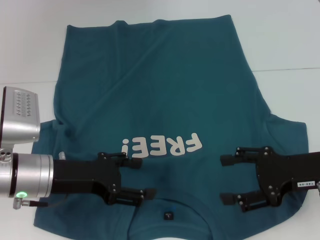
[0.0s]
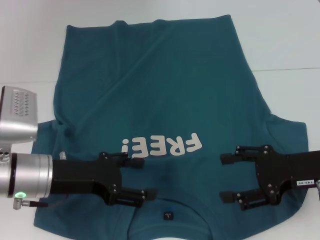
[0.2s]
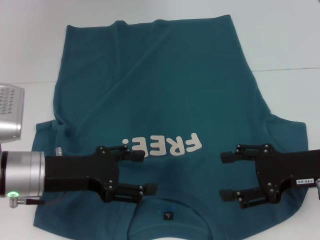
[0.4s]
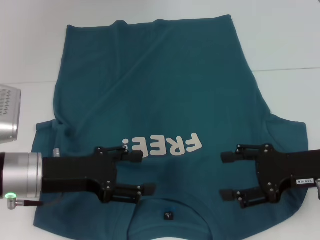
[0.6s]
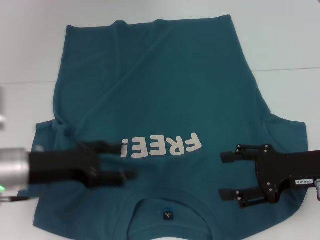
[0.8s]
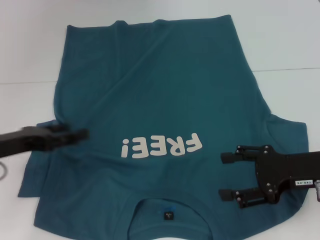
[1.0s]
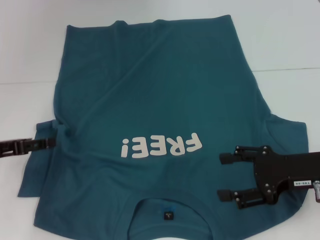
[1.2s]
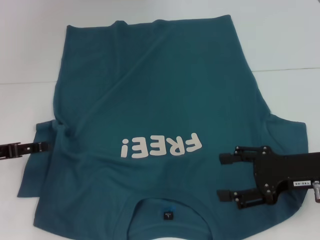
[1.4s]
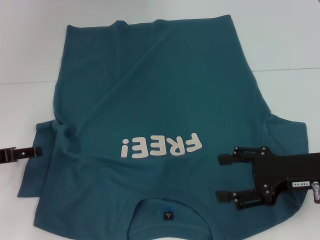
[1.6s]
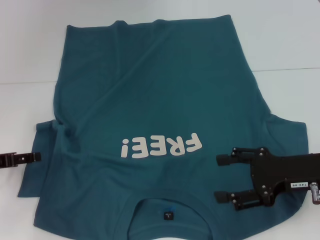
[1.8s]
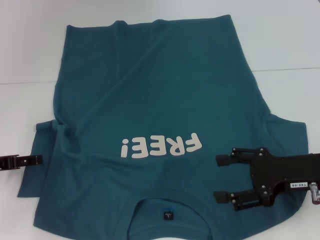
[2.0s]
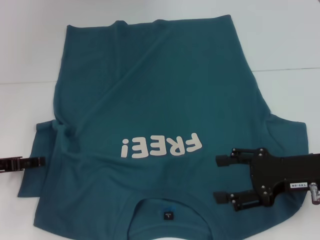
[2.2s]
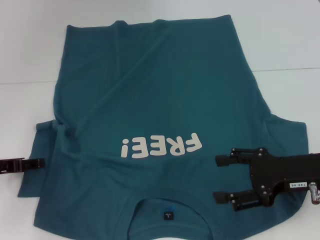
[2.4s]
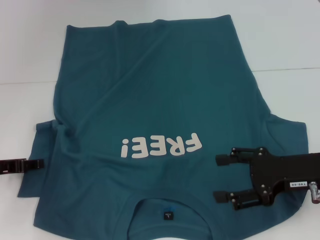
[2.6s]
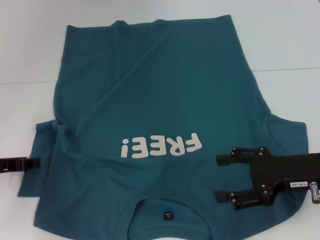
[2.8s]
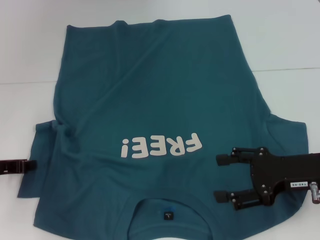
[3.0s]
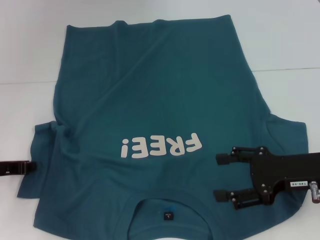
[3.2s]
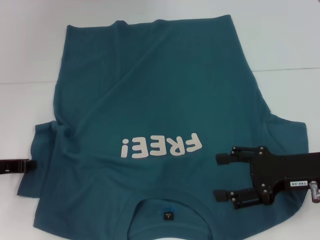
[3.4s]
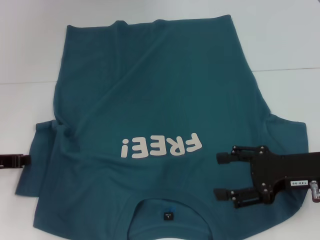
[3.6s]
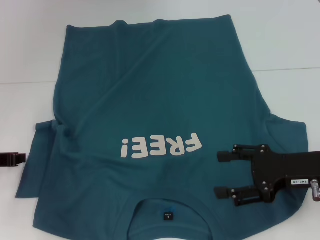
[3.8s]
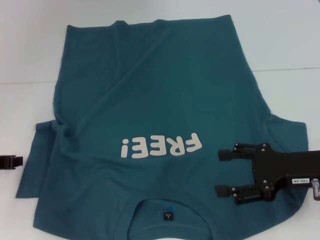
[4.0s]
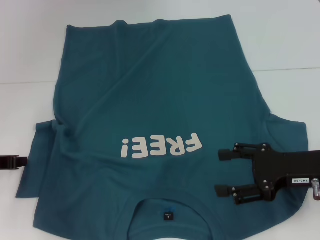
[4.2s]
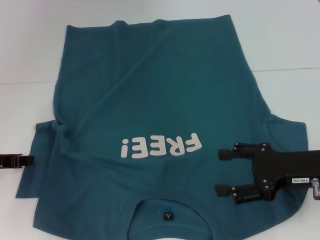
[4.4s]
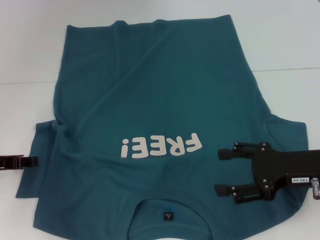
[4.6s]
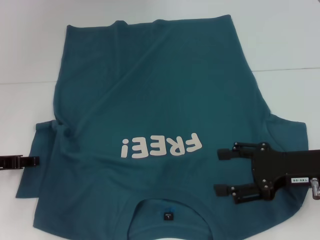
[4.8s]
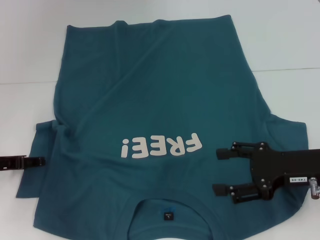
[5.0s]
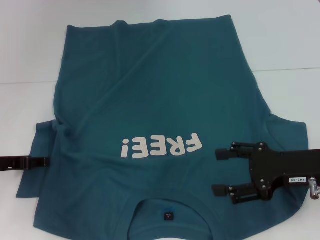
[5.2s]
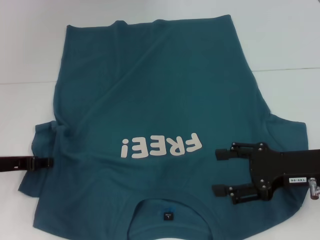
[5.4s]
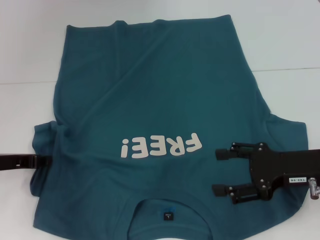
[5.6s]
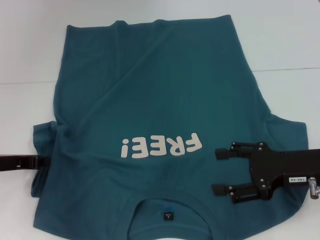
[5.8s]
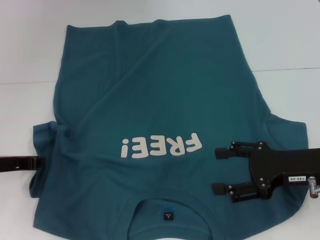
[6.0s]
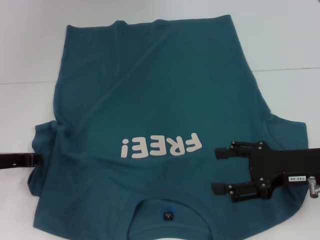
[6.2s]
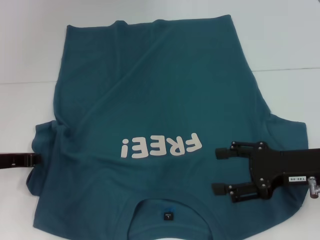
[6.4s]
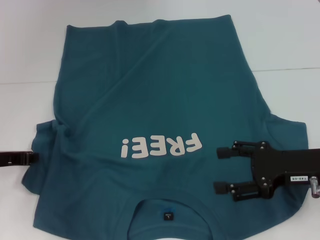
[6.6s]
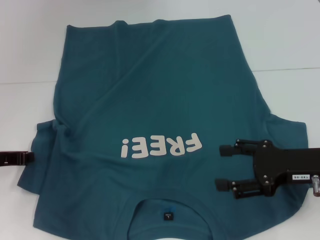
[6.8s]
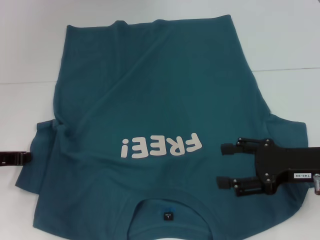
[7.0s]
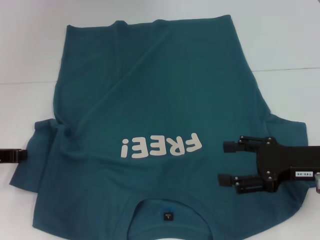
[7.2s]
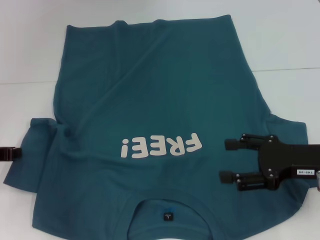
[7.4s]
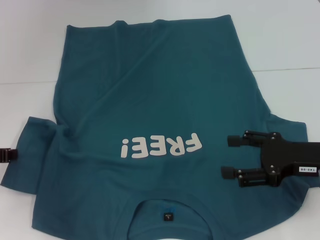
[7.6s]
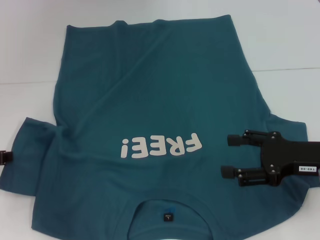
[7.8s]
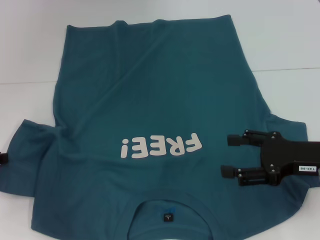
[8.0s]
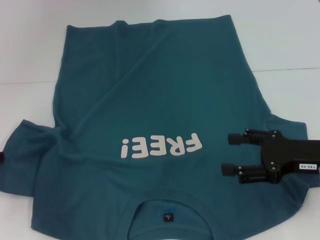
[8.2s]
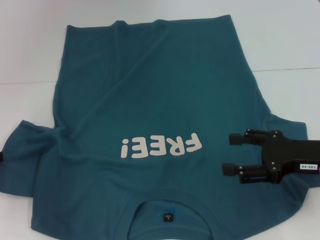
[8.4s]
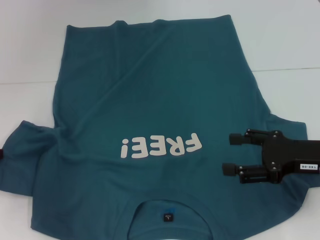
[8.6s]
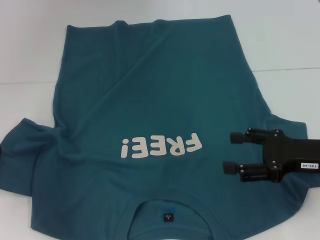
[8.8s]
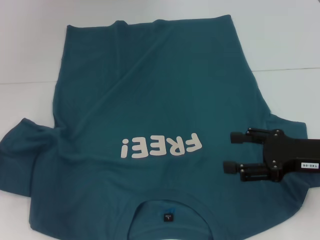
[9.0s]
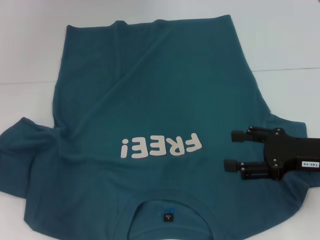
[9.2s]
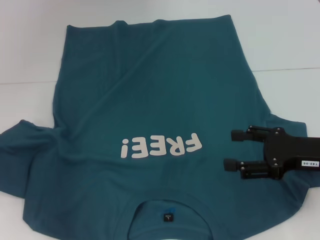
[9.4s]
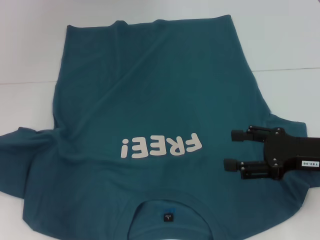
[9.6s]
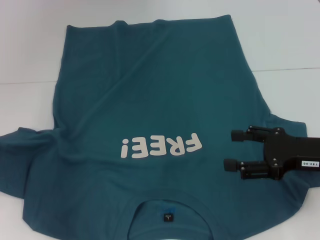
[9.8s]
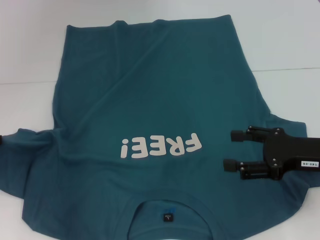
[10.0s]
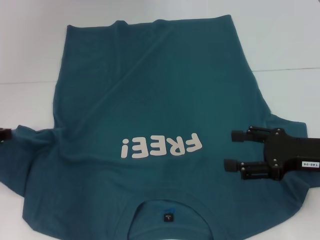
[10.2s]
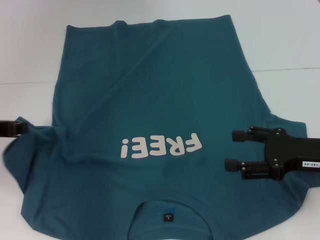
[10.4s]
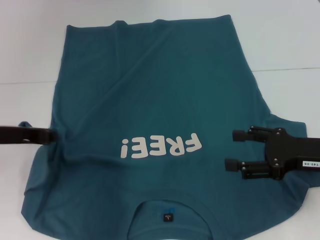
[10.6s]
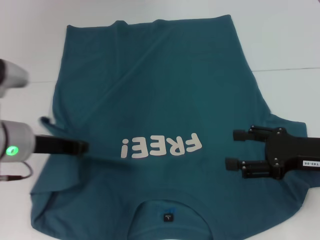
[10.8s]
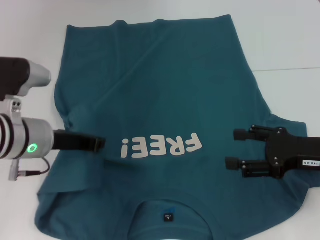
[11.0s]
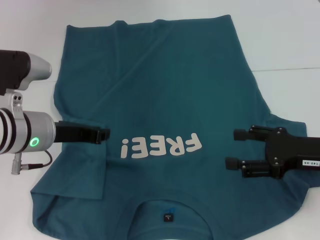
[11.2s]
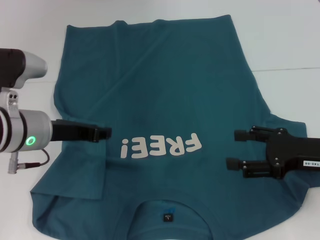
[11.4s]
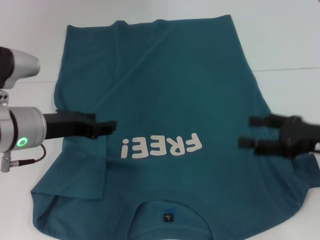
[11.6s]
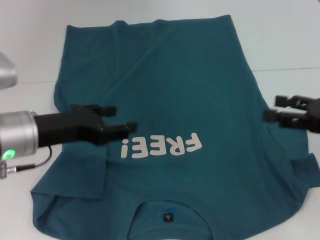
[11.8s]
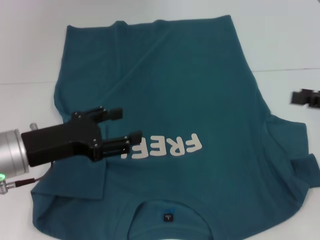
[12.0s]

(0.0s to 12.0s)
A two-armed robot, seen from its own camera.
Step, 0.0s - 11.4s: Fold the bottom left sleeve with your left hand.
0.0s - 1.6s: The left gripper moves to the left, approximately 15 cm.
1.6s - 3.0s: The left gripper closes up.
3.0s - 4.4s: The grippers make only small movements.
4.4s - 6.0s: The left gripper opens, then closes once more.
6.0s - 7.6s: The grippers stay close to where they were, moving slightly.
7.6s - 9.0s: There are only small adjustments of the grippers.
9.0s - 10.4s: The left gripper moves to the right, about 5 cm.
10.4s - 12.0s: The right gripper is displaced to the right and upward by roughly 10 cm. Meanwhile the left gripper is displaced to the right by about 10 cm, and opens.

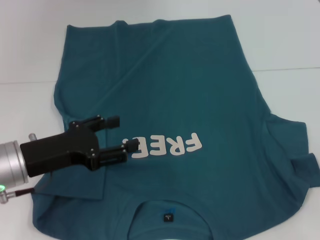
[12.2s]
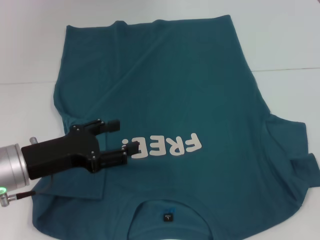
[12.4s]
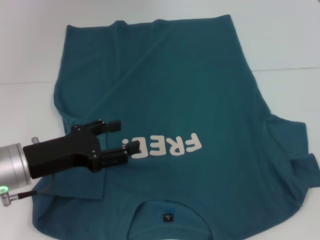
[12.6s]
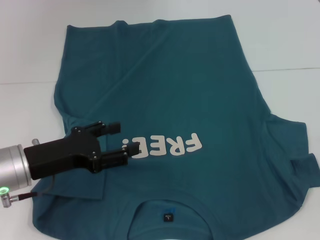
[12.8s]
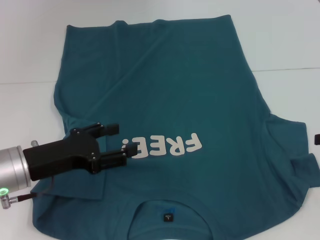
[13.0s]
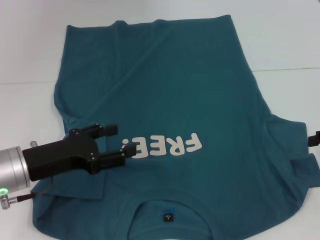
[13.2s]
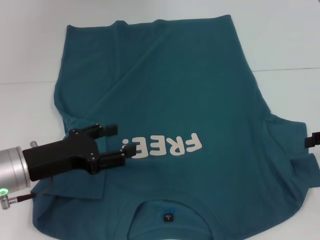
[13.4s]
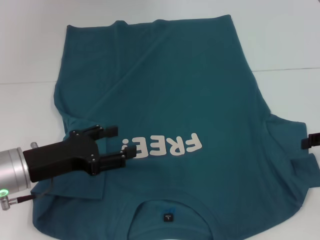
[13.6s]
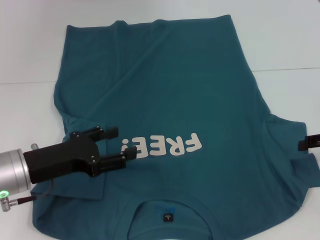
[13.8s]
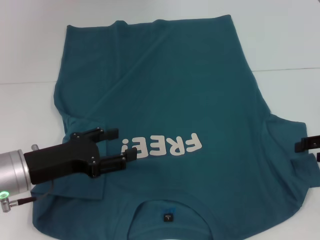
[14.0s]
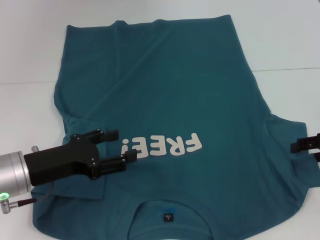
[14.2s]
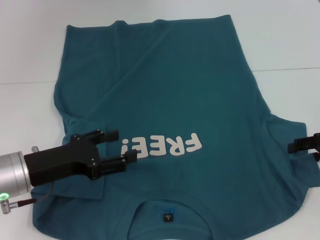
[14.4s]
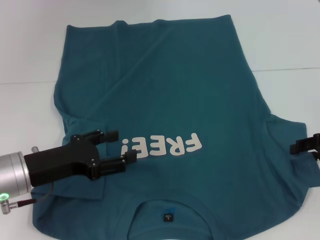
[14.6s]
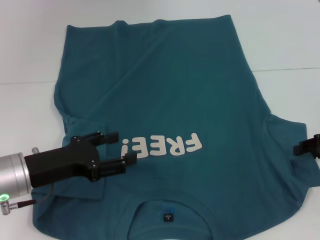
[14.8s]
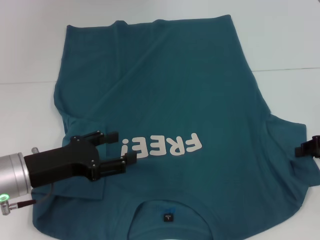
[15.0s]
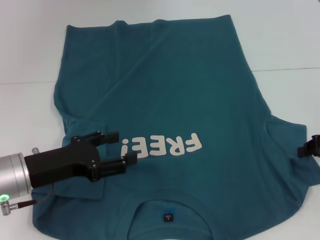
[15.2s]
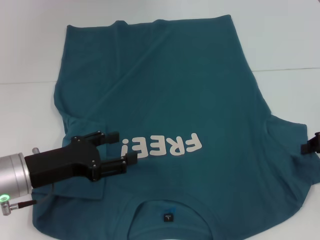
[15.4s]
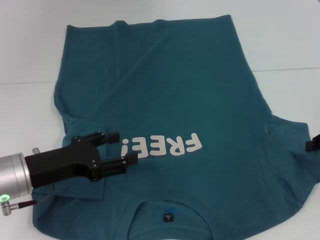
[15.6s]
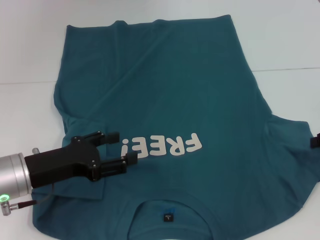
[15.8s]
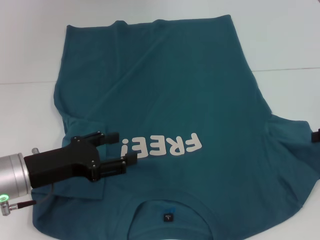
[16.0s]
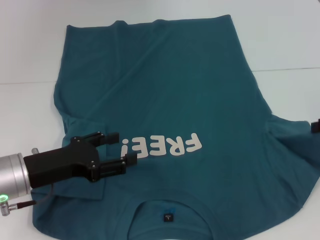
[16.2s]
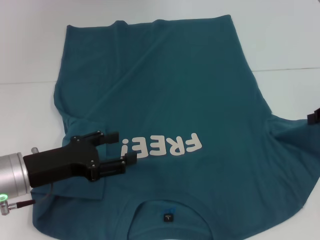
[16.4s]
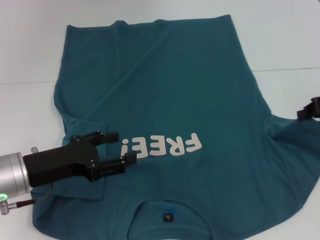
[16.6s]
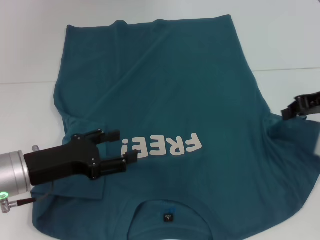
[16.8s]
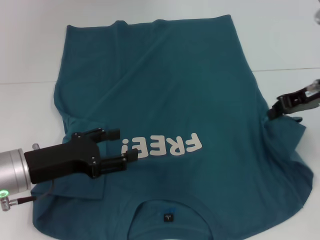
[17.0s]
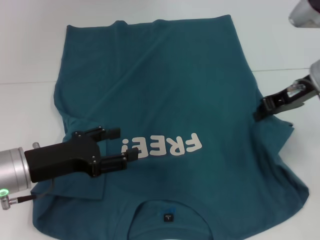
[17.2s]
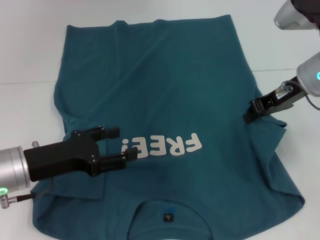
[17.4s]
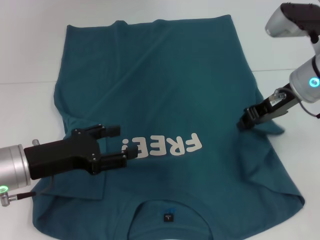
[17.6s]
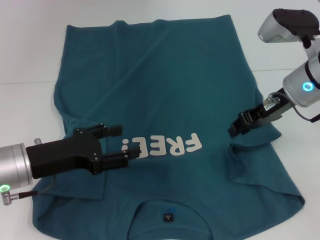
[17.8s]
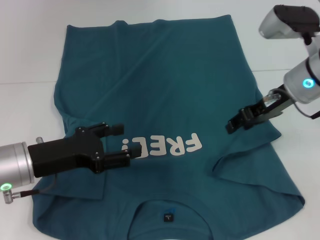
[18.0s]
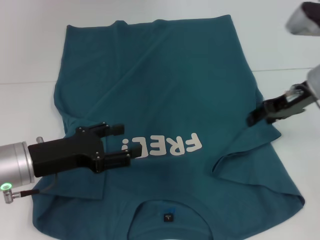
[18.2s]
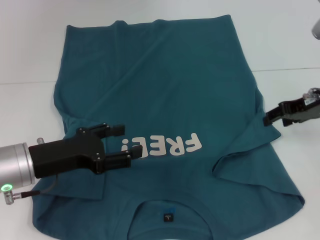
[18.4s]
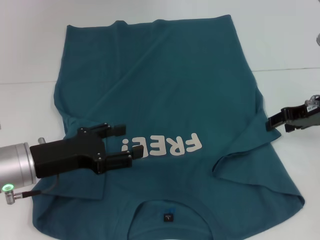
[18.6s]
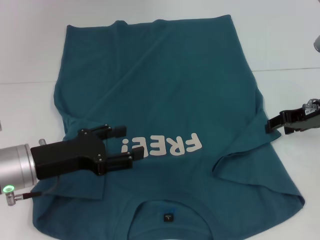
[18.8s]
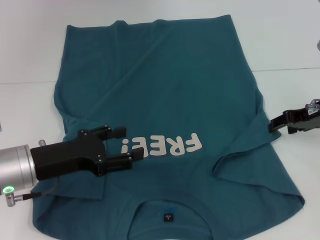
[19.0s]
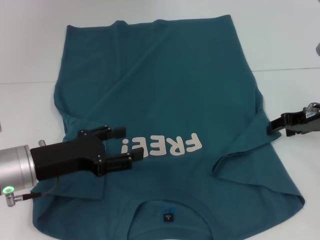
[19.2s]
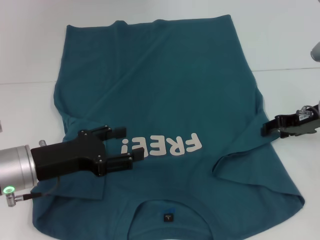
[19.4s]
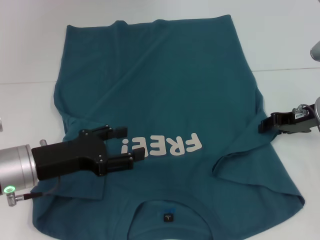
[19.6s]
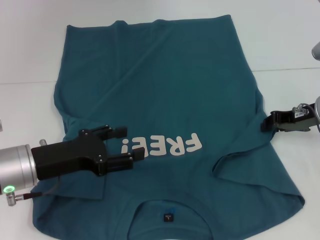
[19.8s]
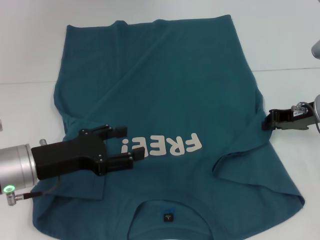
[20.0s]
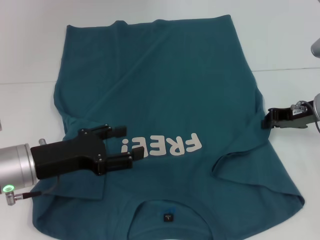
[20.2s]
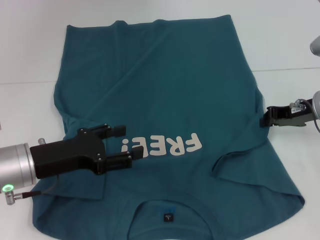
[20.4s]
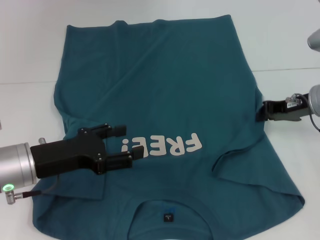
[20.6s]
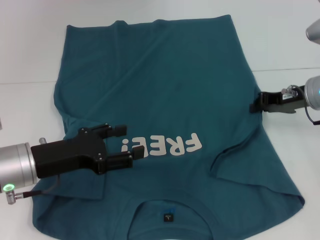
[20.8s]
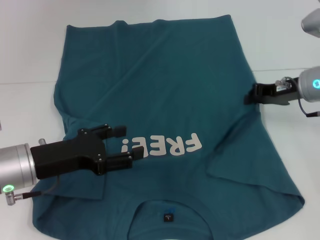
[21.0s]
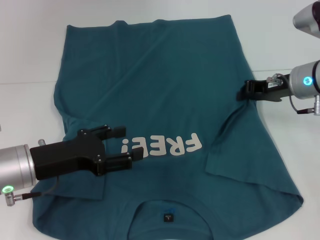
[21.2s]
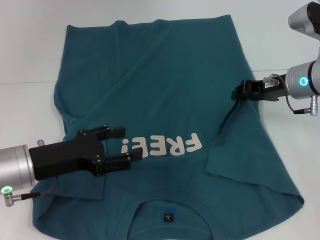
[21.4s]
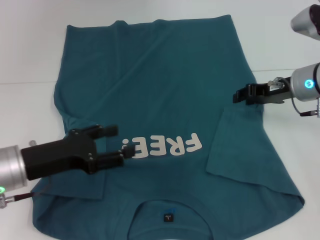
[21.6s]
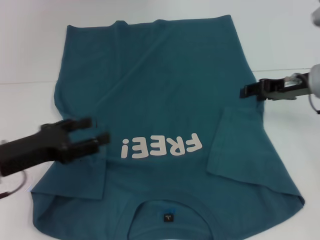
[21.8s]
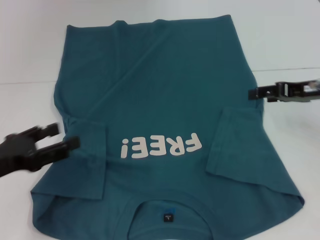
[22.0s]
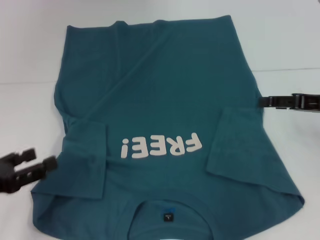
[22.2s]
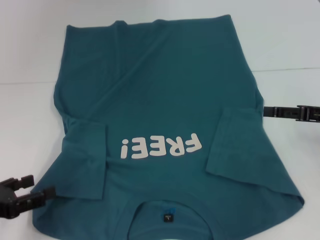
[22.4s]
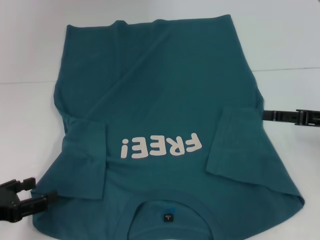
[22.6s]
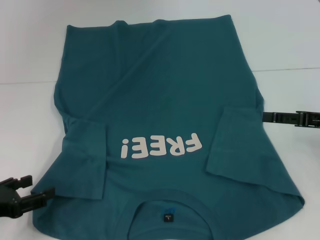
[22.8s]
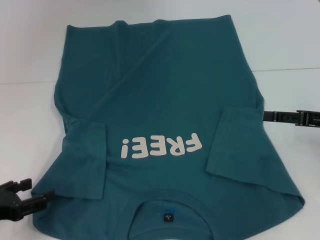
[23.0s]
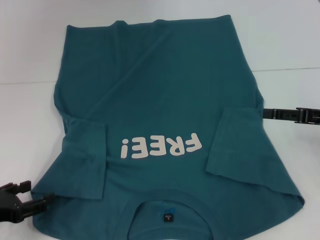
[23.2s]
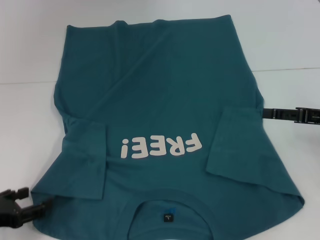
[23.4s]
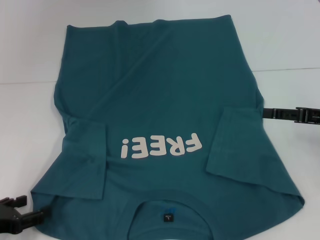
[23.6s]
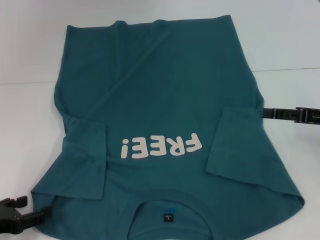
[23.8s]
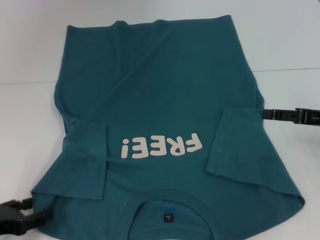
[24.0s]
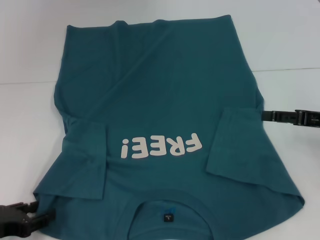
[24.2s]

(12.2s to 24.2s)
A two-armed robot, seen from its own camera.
Step, 12.2s - 21.8s: Fold the bottom right sleeve to the right.
12.2s - 13.8s: The right gripper heads downward, covering some 5 cm.
13.8s - 15.2s: The right gripper closes.
15.2s - 16.6s: The right gripper heads upward, covering some 5 cm.
16.6s - 18.2s: The right gripper goes roughly 10 cm to the left, and opens its fingers.
18.2s - 19.8s: The right gripper travels downward by roughly 5 cm.
19.8s - 21.2s: The right gripper shifts by roughly 5 cm.
21.2s - 22.6s: The left gripper is displaced to the left and backward by some 15 cm. Meanwhile the right gripper shifts roughly 15 cm backward and to the right, and opens its fingers.
22.6s - 24.2s: The grippers stay close to where they were, moving slightly.
